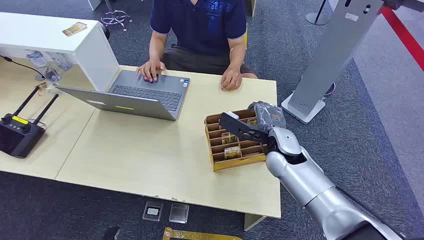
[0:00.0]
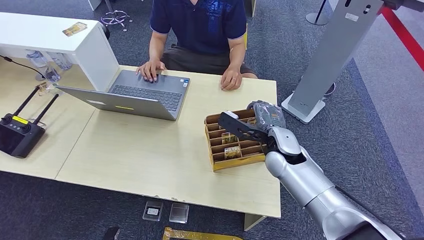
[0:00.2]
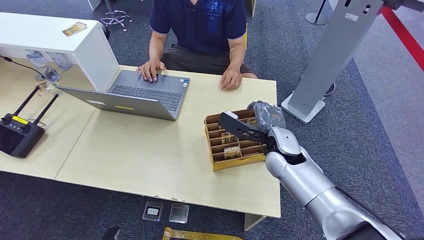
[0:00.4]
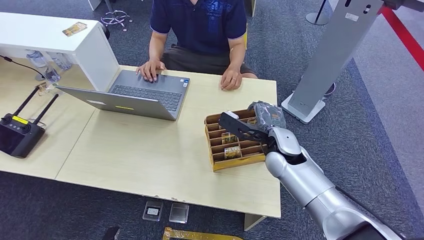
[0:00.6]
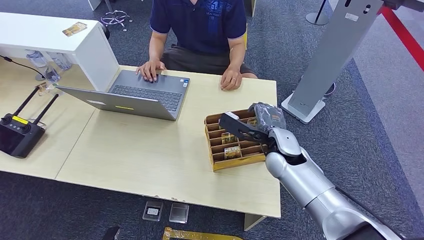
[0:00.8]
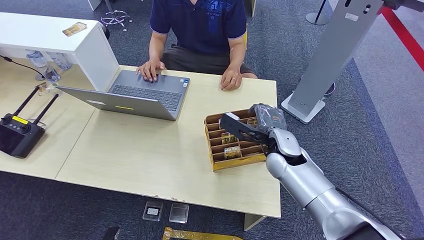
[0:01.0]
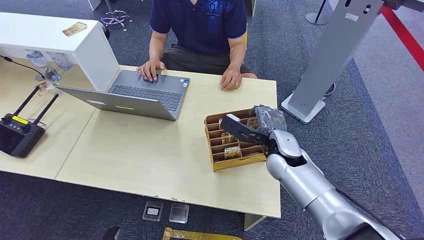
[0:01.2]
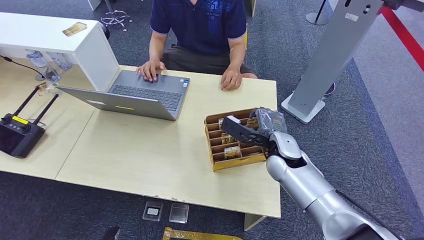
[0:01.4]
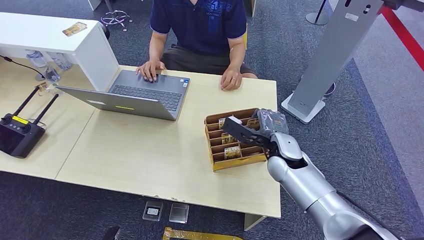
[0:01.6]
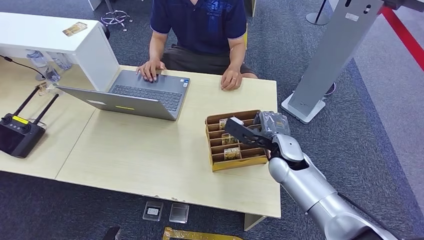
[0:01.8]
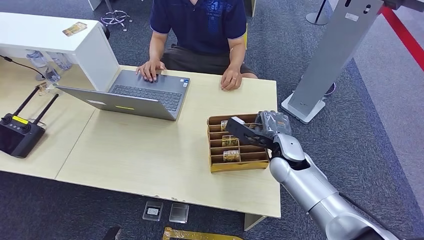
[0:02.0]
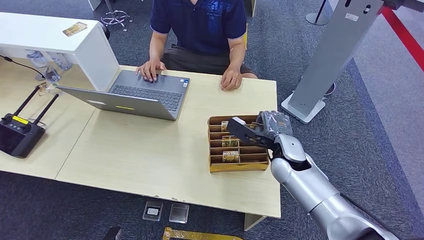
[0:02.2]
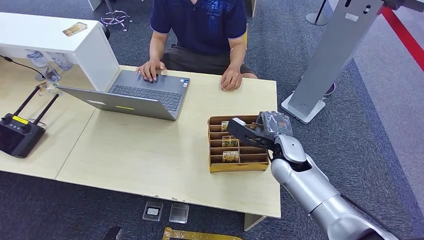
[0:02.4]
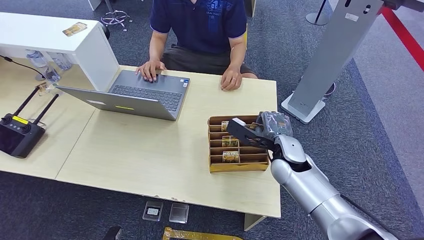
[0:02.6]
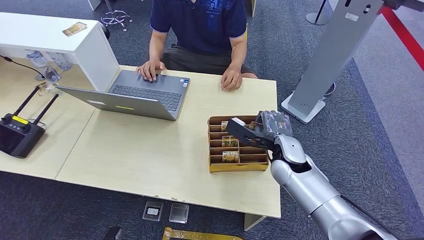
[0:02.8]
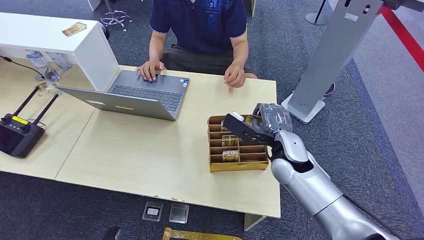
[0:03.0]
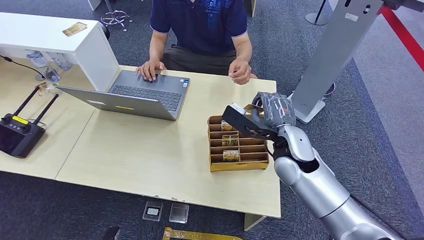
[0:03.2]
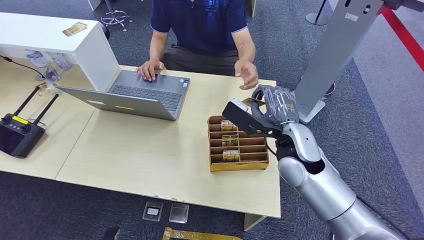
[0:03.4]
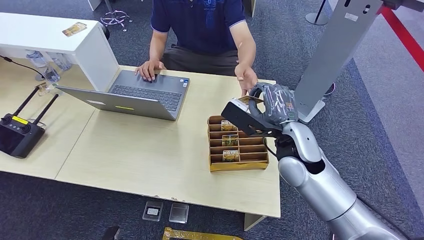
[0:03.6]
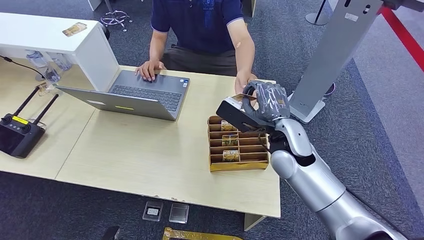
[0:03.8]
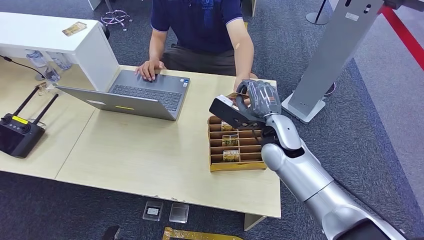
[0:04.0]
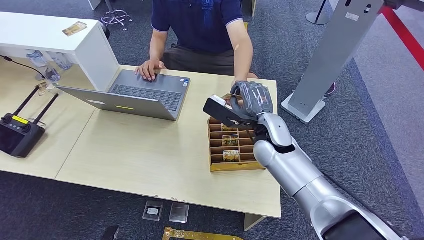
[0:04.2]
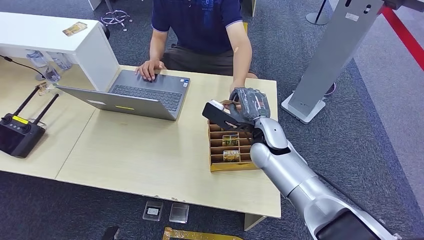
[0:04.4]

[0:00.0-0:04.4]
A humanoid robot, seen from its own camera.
Task of the whole recording: Pick up the card and hand it over to the target person.
Step, 0:00.0 to 0:03.0: Pick up the key card from the card box.
Step, 0:03.6 to 0:04.4: Hand the key card to the target.
0:01.4 to 0:03.0: The right hand goes about 10 cm upward.
0:03.0 to 0:04.4: The right hand heads downward and forward, covering roughly 10 cm.
